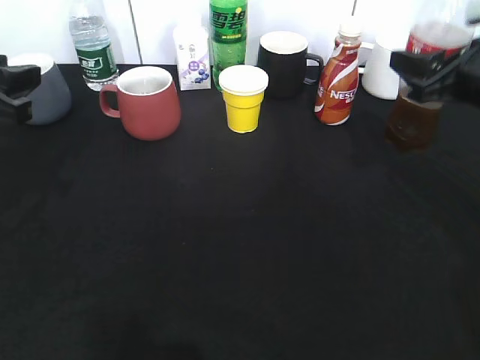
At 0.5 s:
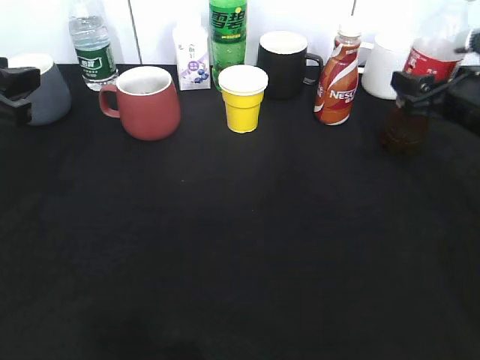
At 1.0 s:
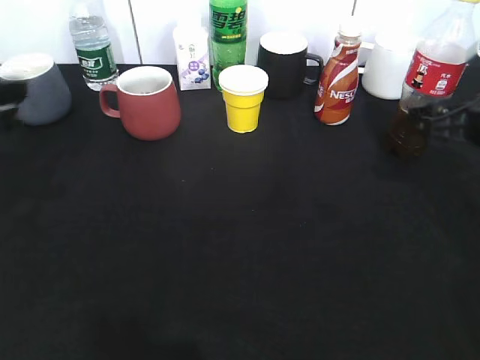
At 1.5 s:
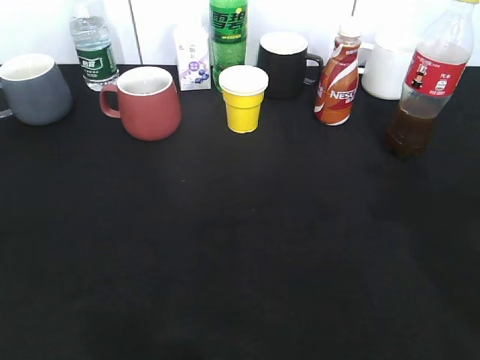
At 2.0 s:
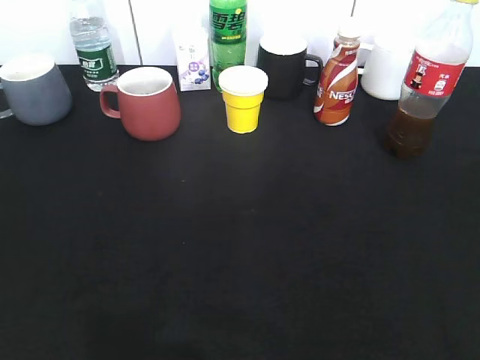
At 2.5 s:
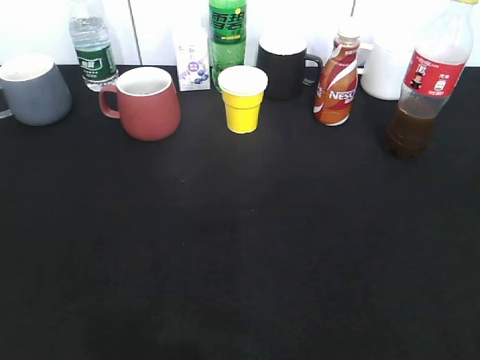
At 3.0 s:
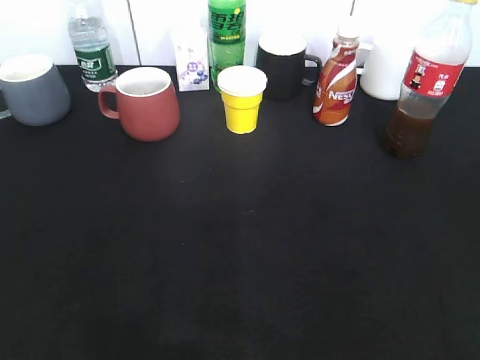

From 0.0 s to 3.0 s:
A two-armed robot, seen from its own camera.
From 0.0 s to 1.5 s: The grippers both shift backward and upward by roughly 15 cm. The right gripper opens.
From 1.5 s to 3.0 s: The left gripper travels backward and downward by approximately 15 cm, while the right gripper is displaced backward by some 20 cm.
